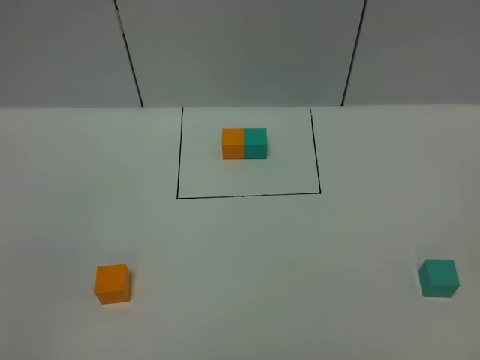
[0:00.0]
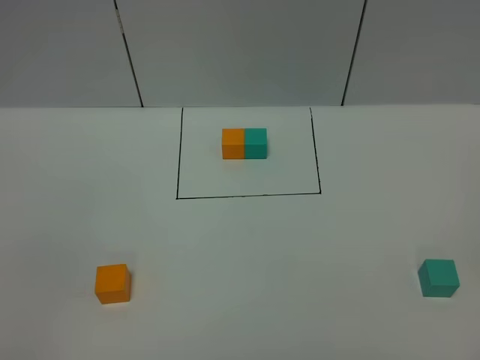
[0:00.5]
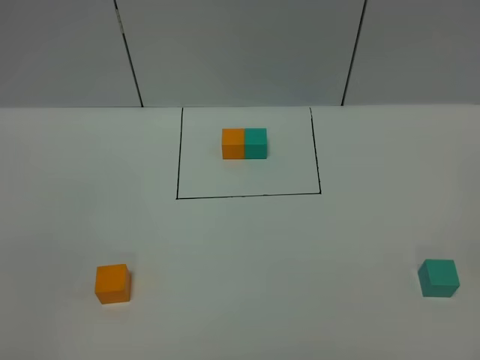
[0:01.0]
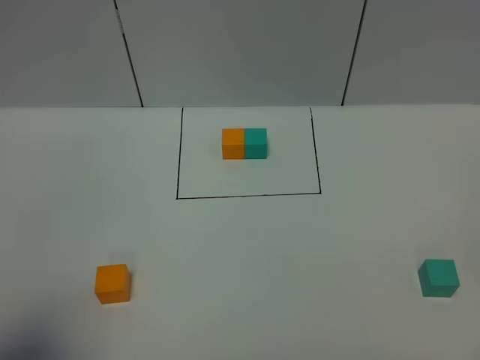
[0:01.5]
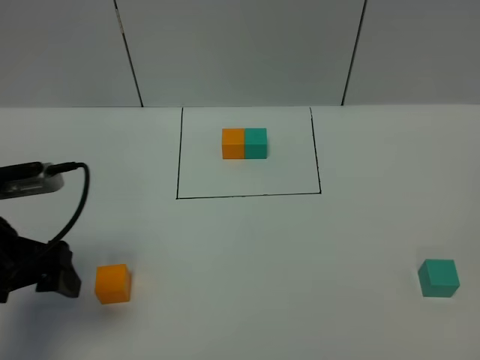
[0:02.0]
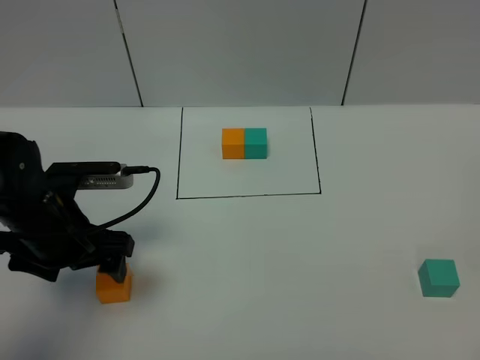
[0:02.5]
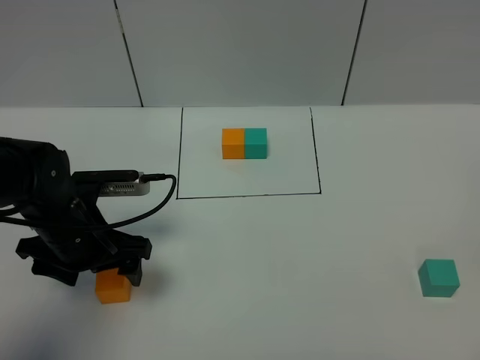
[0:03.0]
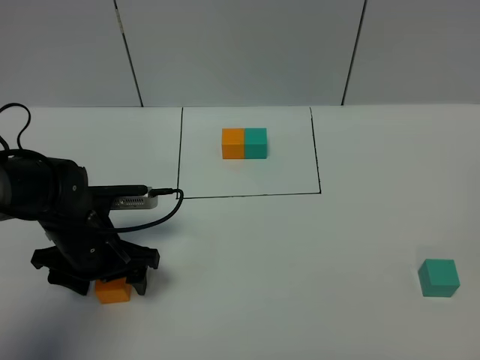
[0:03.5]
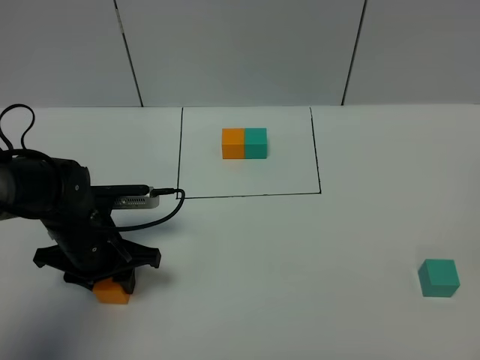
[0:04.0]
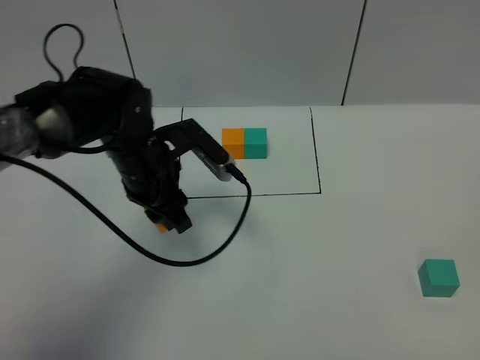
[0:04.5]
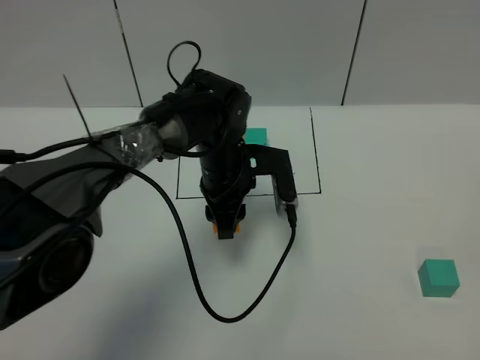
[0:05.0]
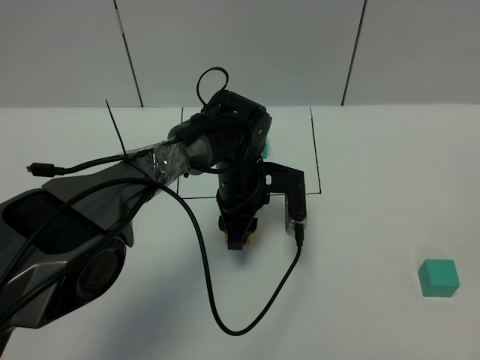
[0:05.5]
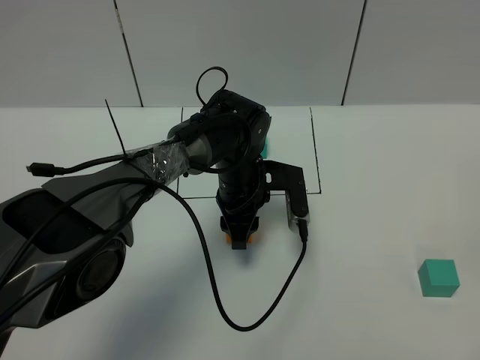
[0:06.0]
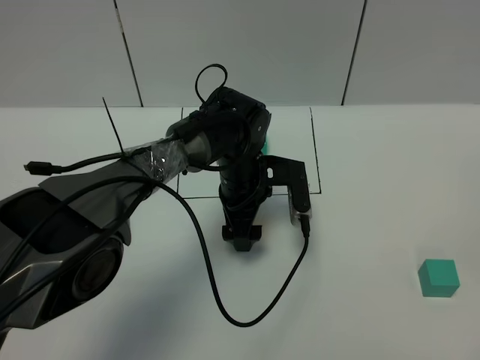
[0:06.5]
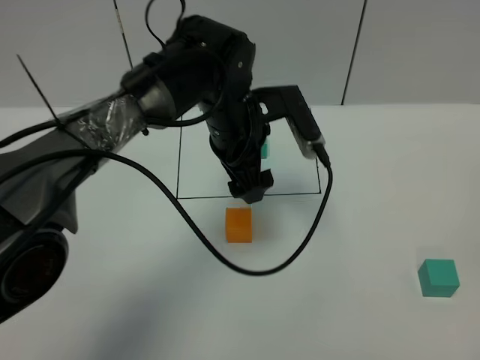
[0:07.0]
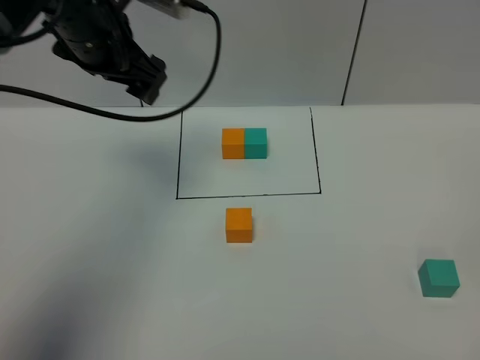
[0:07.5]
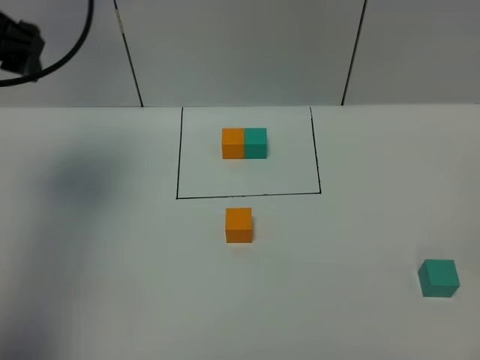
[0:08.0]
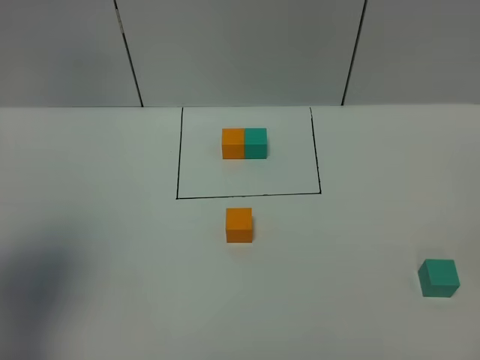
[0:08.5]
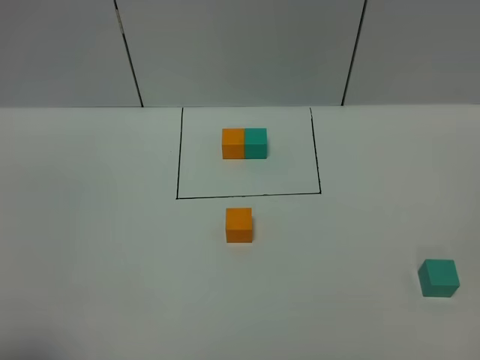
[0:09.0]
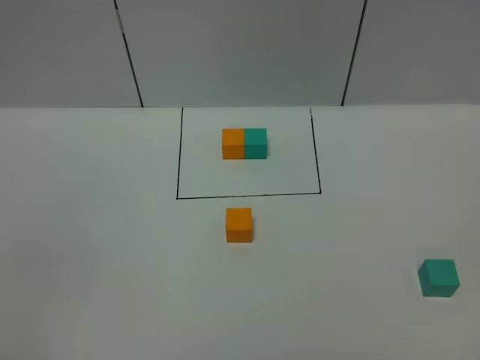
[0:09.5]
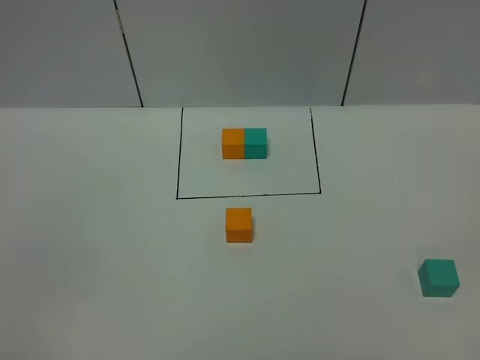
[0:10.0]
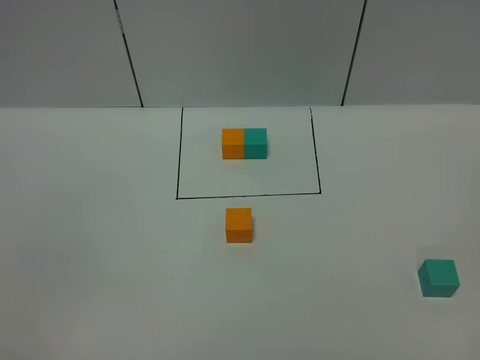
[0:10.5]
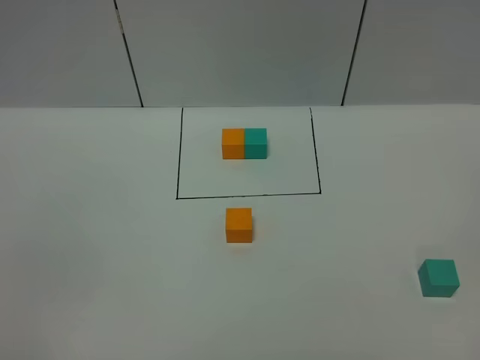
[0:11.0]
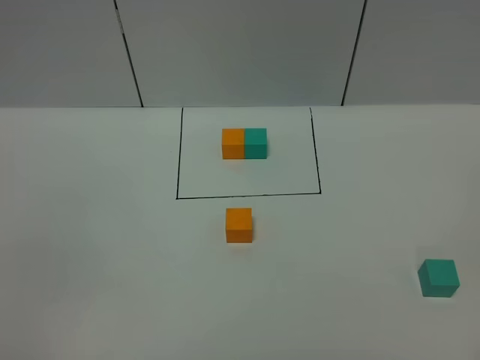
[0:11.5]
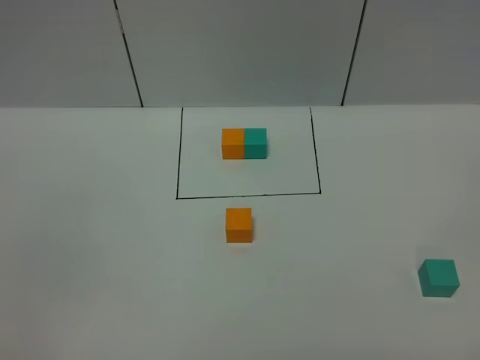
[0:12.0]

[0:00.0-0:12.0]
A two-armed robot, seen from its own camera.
Task of the whole recording: According to the building block template in front, assemble the scattered blocks together.
Step, 0:02.0 to 0:06.5: Put the orange cube in the center of the table.
0:00.0 to 0:02.0: The left gripper travels forward by about 25 cm, and opens up.
0:02.0 to 0:04.0: The left gripper travels downward, forward and to the right by roughly 15 cm, and closes its fingers.
0:04.0 to 0:06.0: The left gripper goes approximately 20 cm to the right and forward.
0:06.0 to 0:08.0: The left gripper heads to the left and upward, covering about 40 cm, and opens up.
0:08.0 to 0:10.0: The left gripper moves backward, some 40 cm.

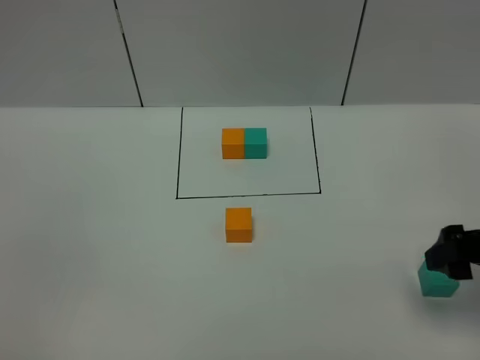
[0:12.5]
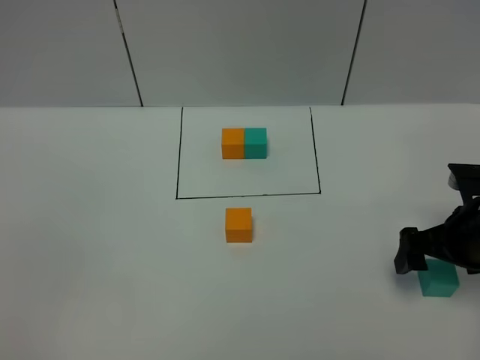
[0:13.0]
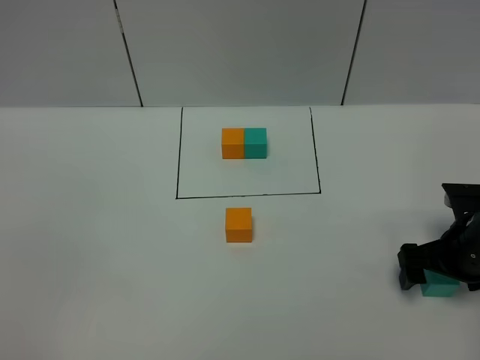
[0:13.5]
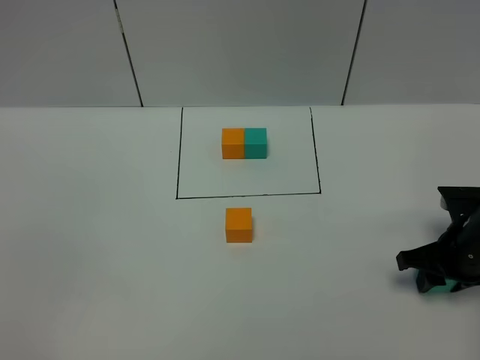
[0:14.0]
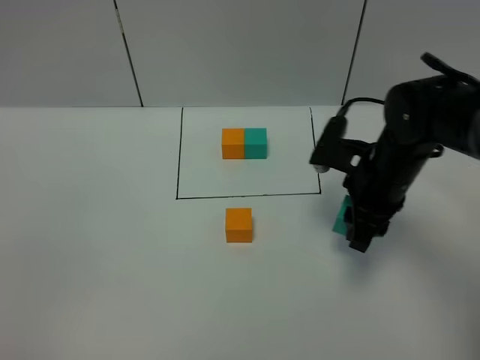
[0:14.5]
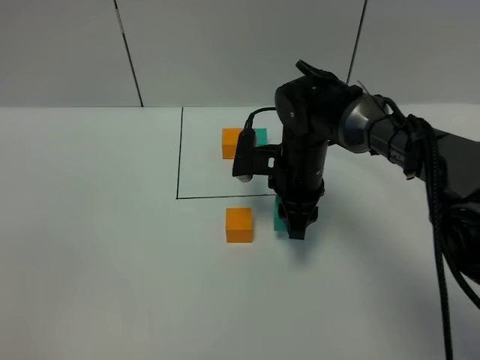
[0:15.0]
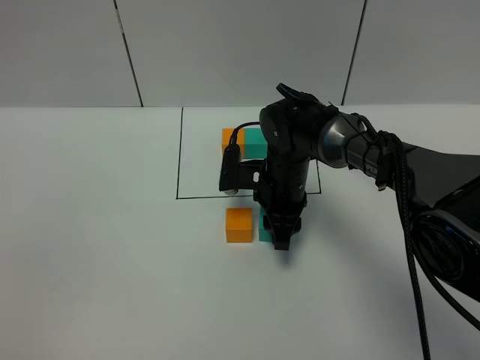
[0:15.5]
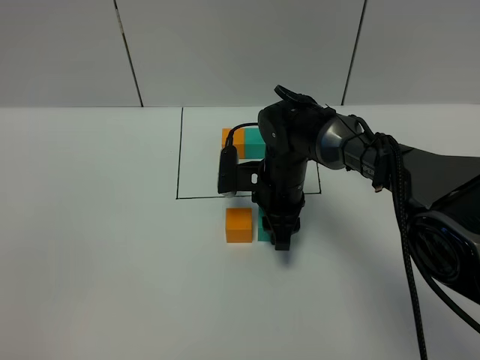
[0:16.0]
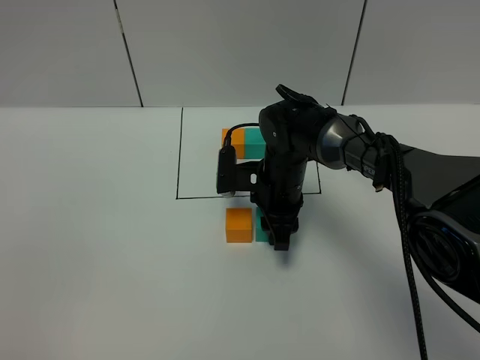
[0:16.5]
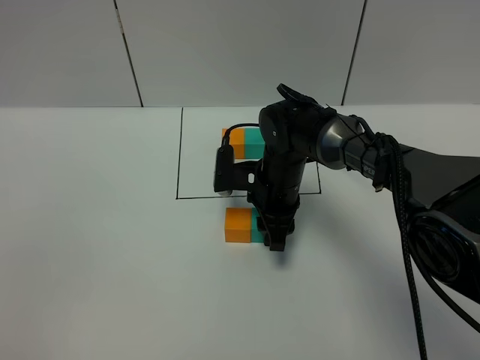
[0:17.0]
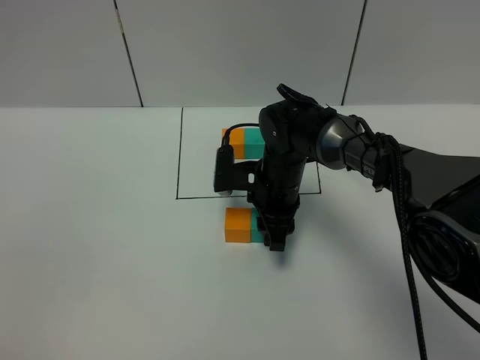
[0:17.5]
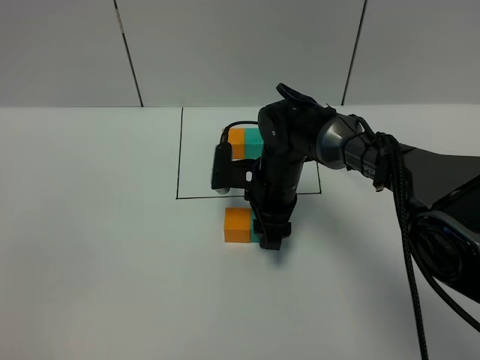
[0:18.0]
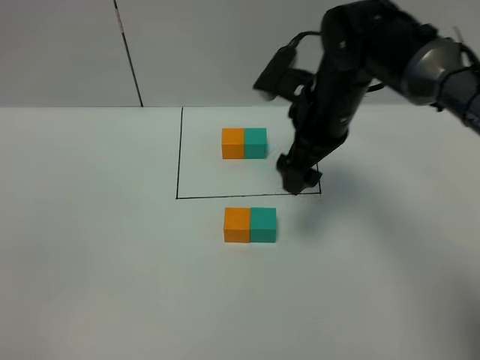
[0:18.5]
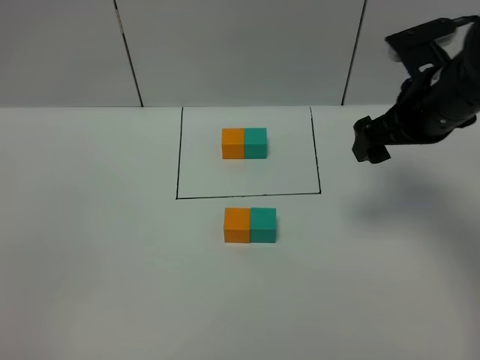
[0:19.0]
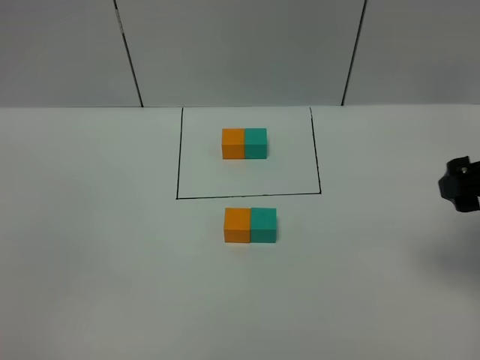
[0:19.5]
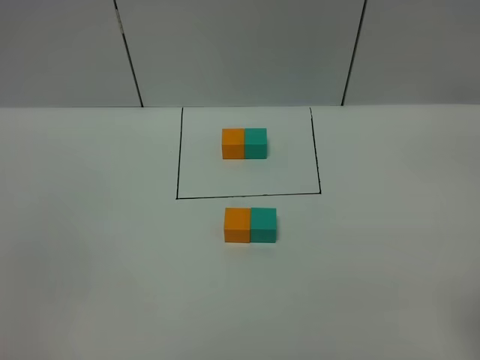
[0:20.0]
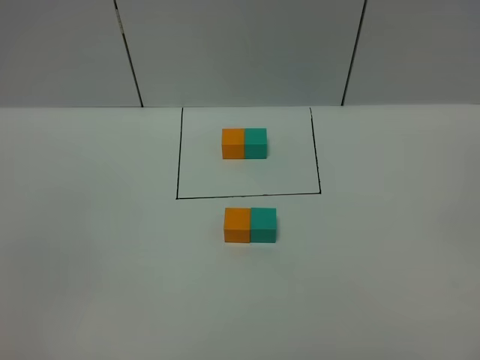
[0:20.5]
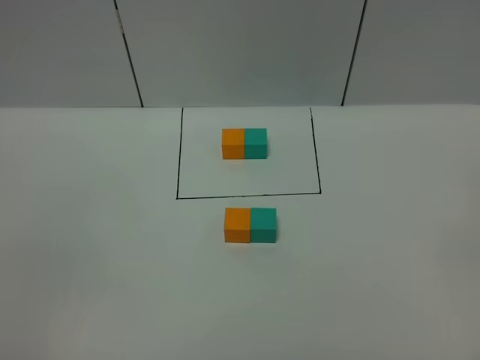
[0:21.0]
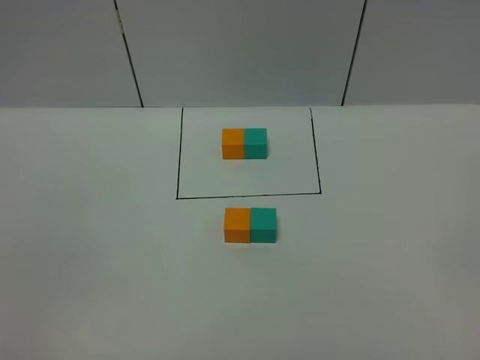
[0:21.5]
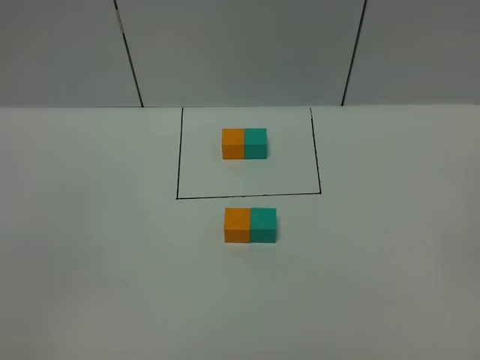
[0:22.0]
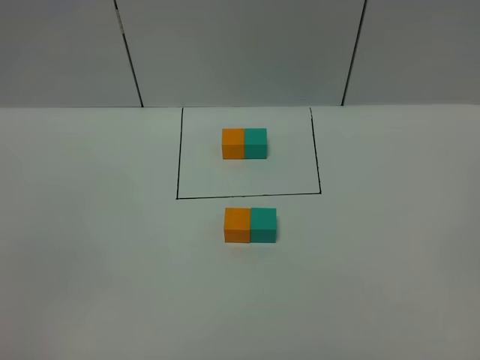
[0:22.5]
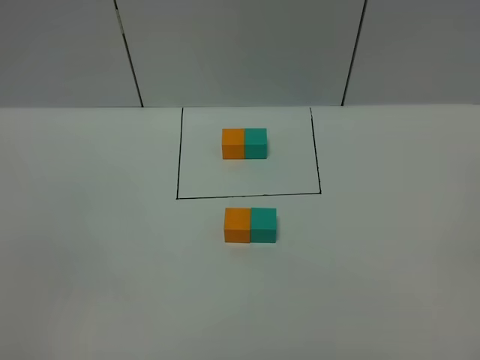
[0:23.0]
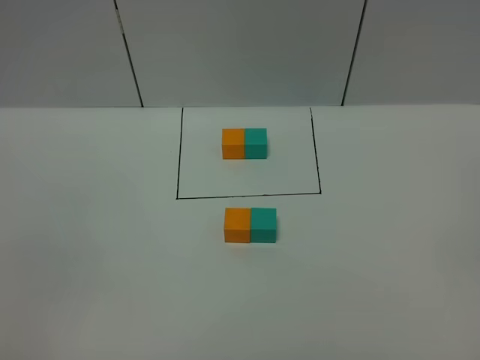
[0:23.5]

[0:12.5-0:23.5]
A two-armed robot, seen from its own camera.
Task of the whole recording: According to the building block template in front, assemble the scattered blocks together.
Step, 0:12.5 to 0:18.0: Put the green cube on the right of the orange cube.
0:12.5 to 0:14.5: The right gripper goes roughly 20 cm forward and to the left, and closes its fingers.
0:14.5 to 0:16.0: The right gripper shifts about 15 cm to the left, downward and forward.
0:16.0 to 0:18.0: The grippers move only a little.
0:18.0 to 0:20.0: The right gripper shifts approximately 40 cm backward, to the right and upward, and opens up.
